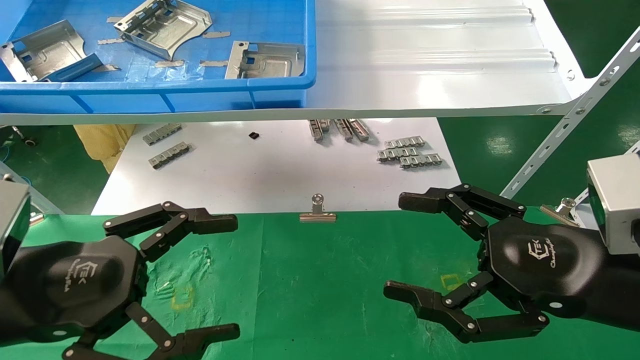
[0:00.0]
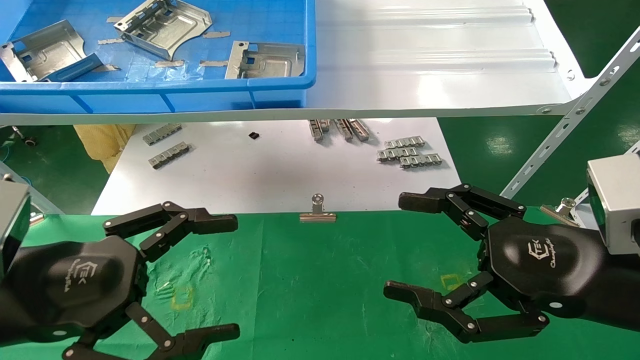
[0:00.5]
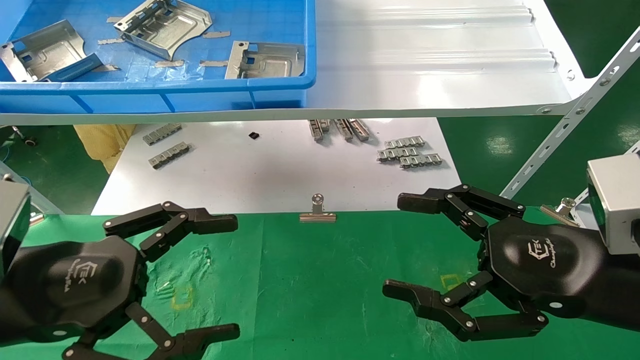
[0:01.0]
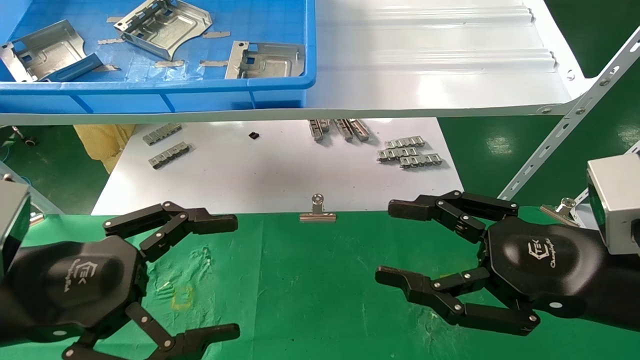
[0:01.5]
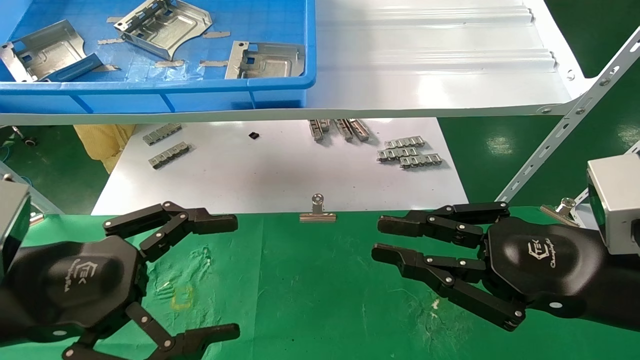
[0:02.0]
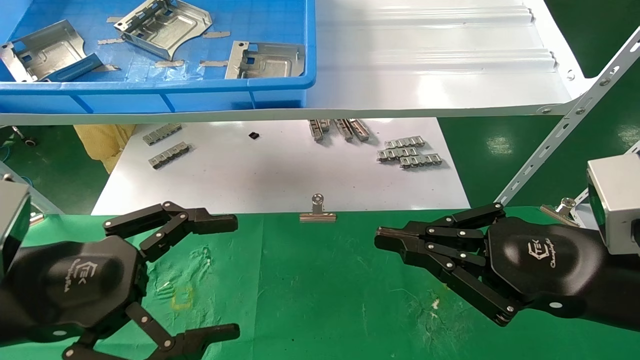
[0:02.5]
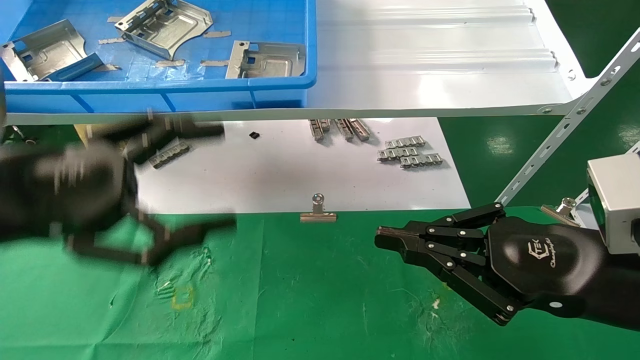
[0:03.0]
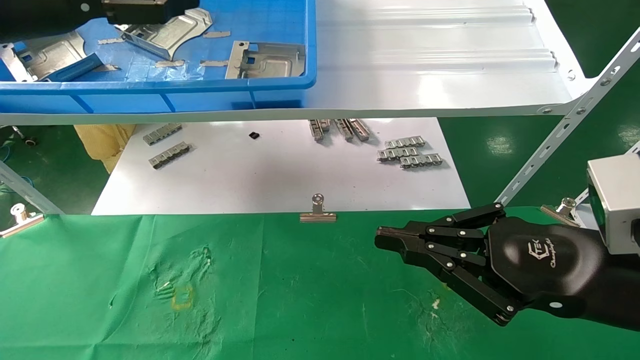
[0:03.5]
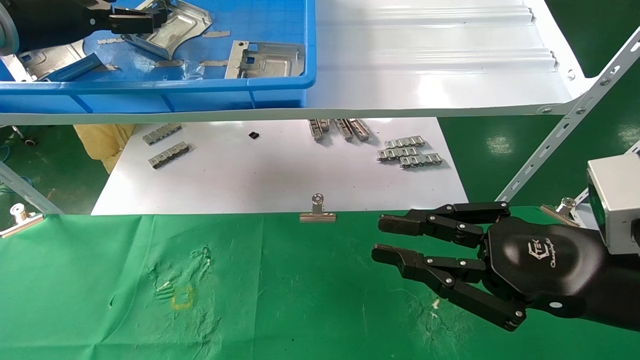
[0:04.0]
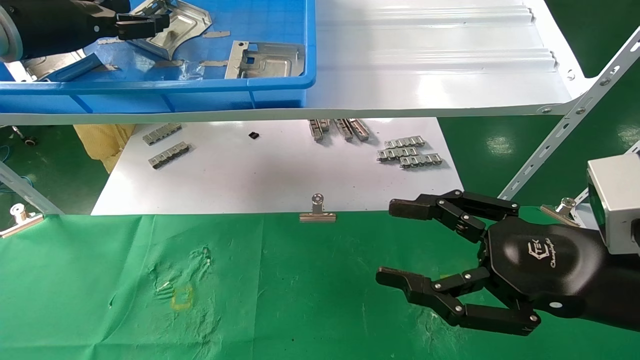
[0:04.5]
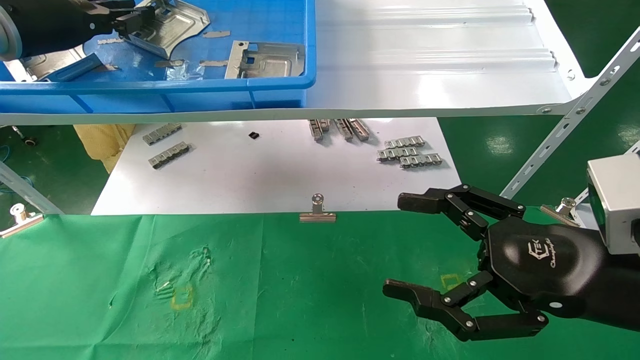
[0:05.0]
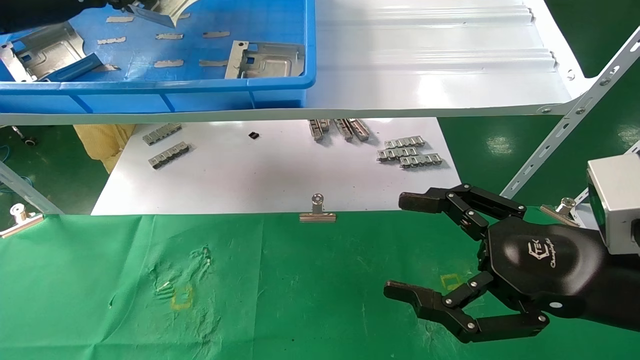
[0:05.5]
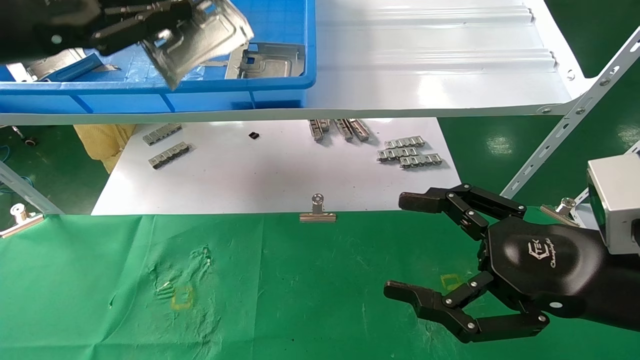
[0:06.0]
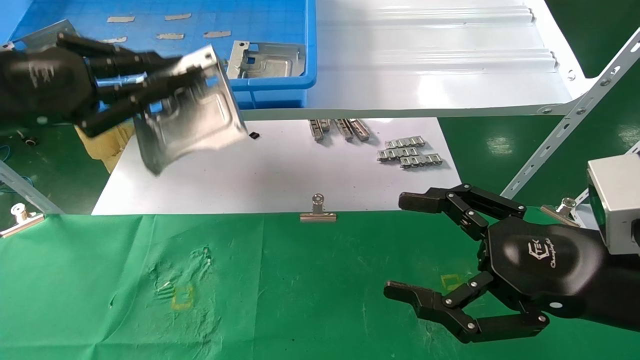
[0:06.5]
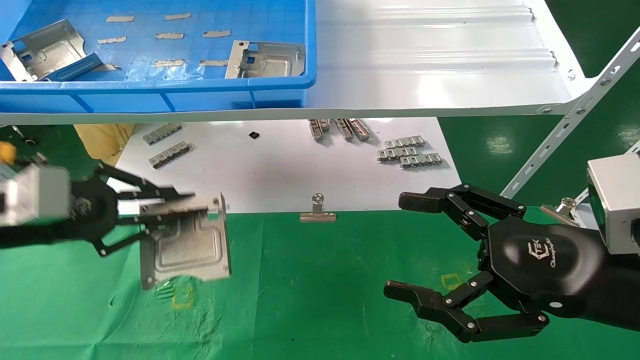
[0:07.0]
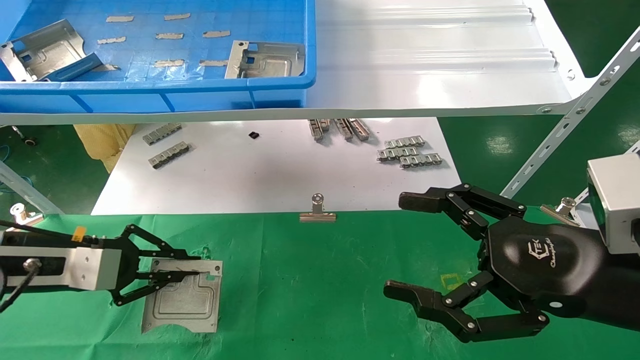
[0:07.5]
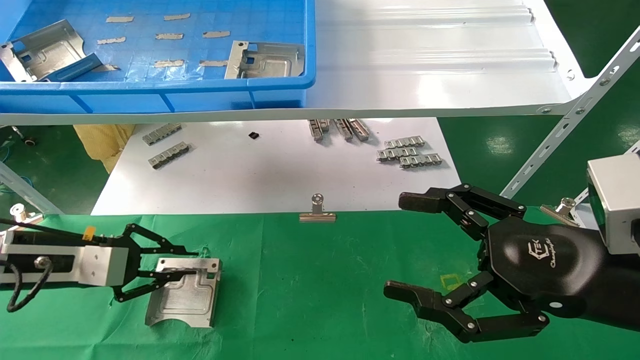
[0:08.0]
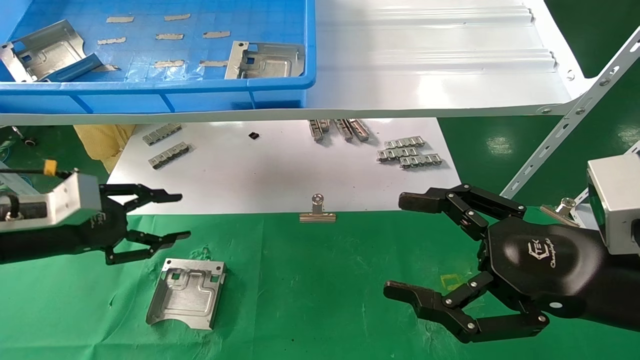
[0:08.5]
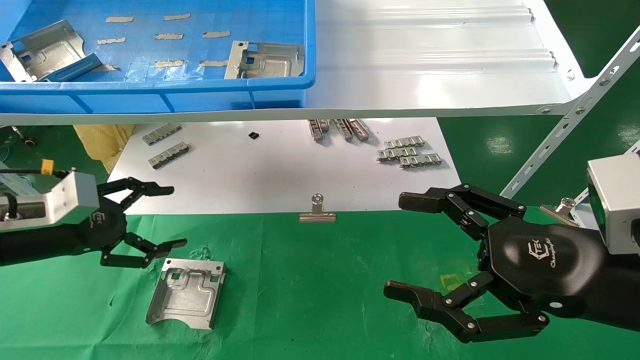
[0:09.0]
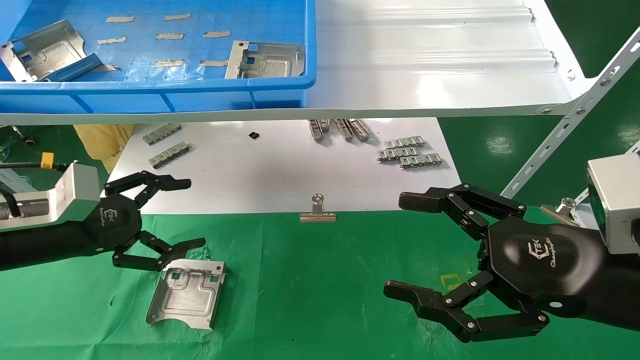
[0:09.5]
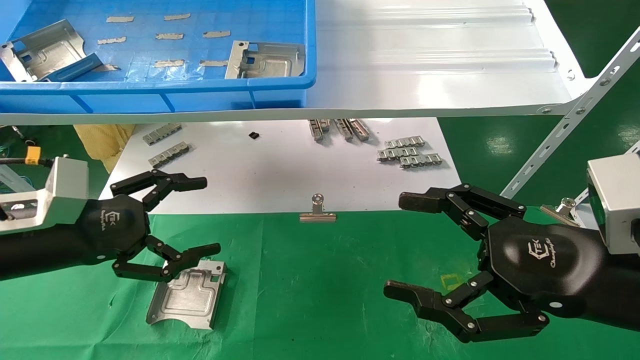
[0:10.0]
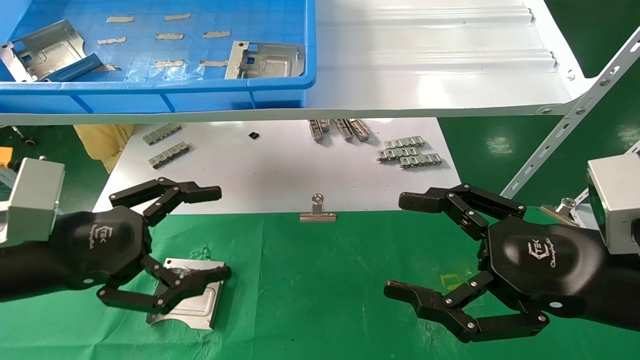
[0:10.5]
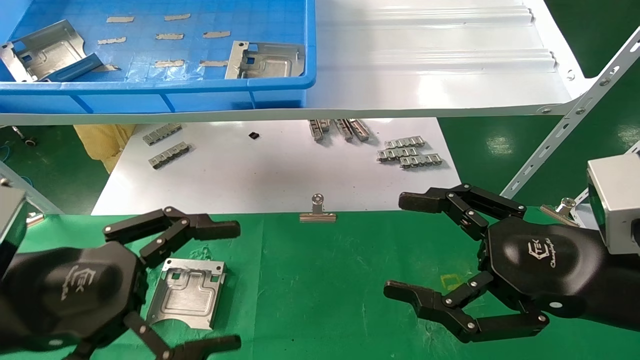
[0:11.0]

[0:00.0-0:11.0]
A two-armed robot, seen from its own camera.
Task of the whole recording: use the mechanical arm to pick up the parts and place them on the table.
Step, 0:03.5 to 0:05.0: Pick up the hard drive bracket from the feeding area.
Step, 0:05.5 to 0:08.0: Place the hard drive bracket into the box.
0:00.0 to 0:02.0: The right gripper closes up.
0:02.0 to 0:03.5: The left gripper is displaced upward and forward by approximately 25 cm.
0:03.5 to 0:05.5: The right gripper opens. The left gripper closes up.
0:05.5 to 0:07.5: The left gripper travels downward by roughly 25 cm.
0:07.5 to 0:09.0: The left gripper opens.
0:09.0 to 0:11.0: The left gripper heads backward and to the right, covering some 15 cm.
